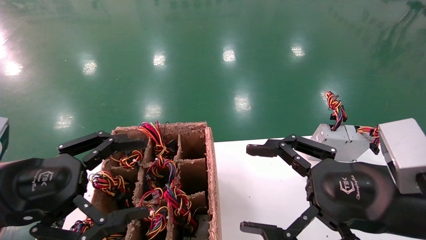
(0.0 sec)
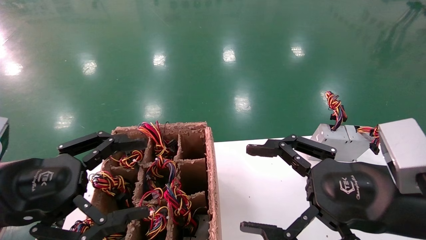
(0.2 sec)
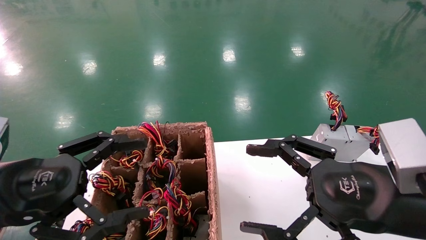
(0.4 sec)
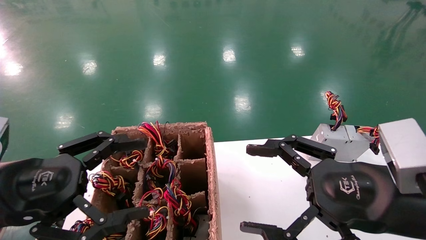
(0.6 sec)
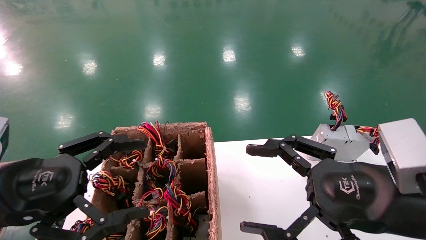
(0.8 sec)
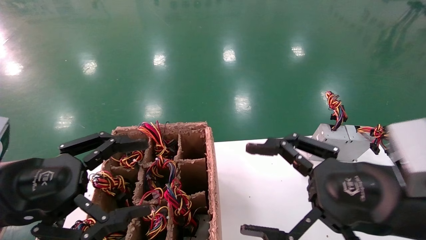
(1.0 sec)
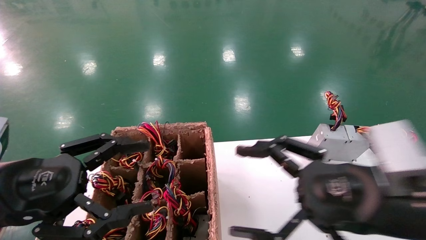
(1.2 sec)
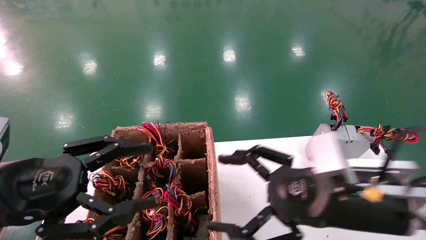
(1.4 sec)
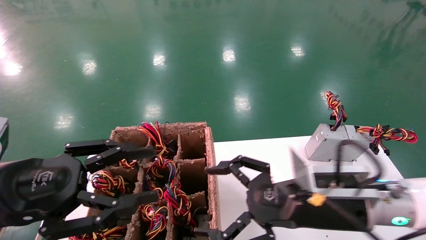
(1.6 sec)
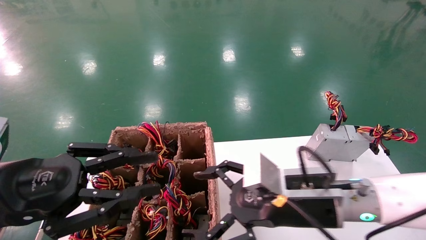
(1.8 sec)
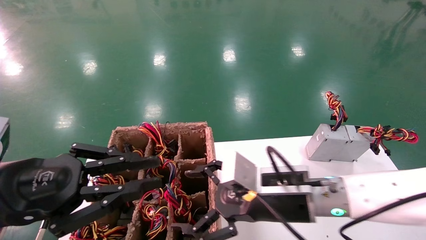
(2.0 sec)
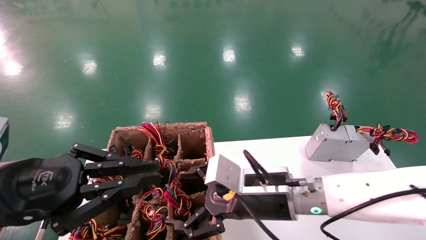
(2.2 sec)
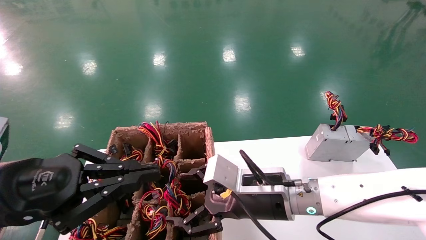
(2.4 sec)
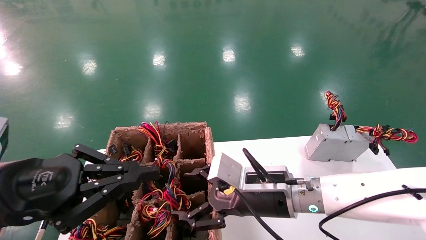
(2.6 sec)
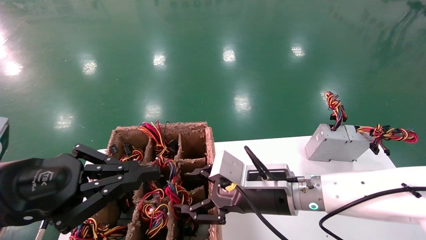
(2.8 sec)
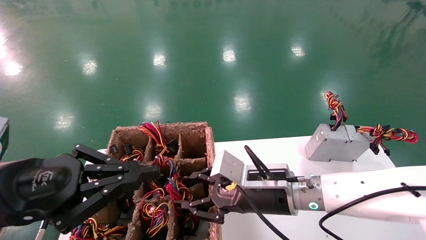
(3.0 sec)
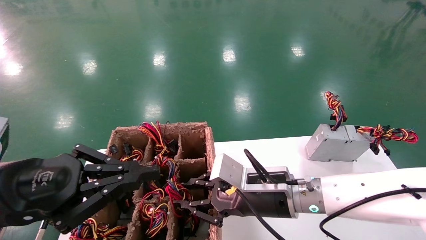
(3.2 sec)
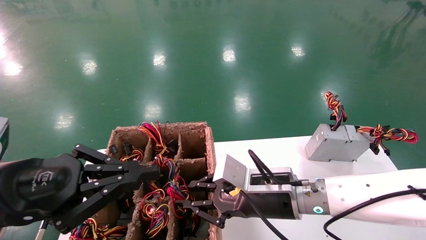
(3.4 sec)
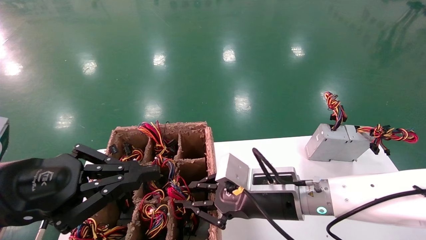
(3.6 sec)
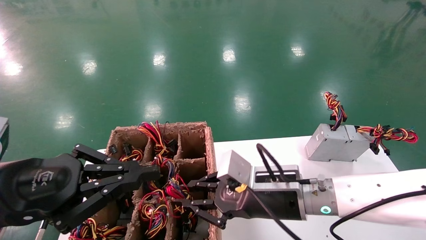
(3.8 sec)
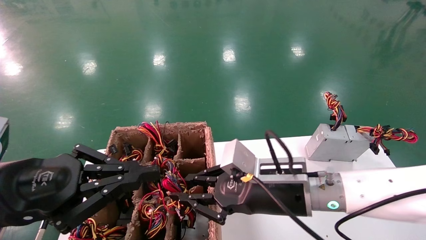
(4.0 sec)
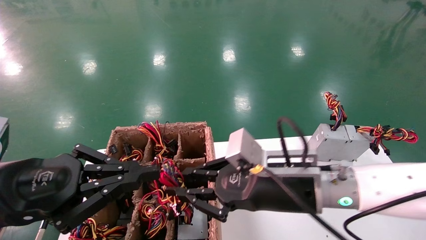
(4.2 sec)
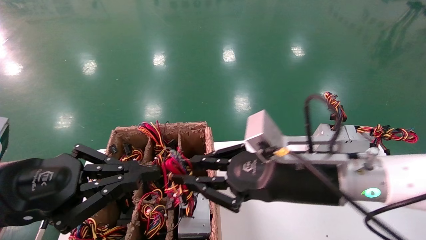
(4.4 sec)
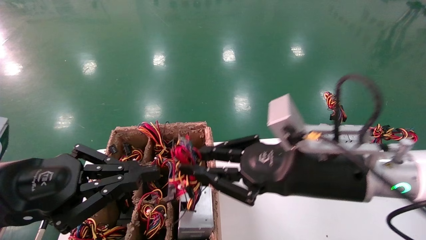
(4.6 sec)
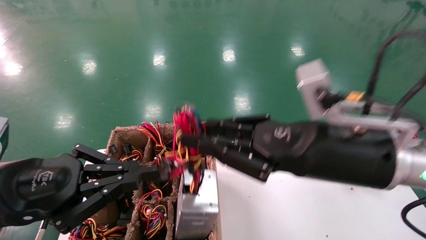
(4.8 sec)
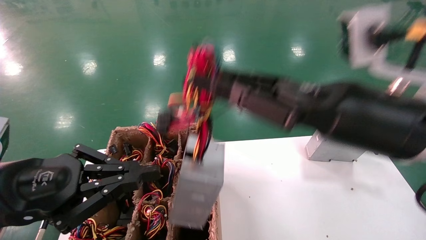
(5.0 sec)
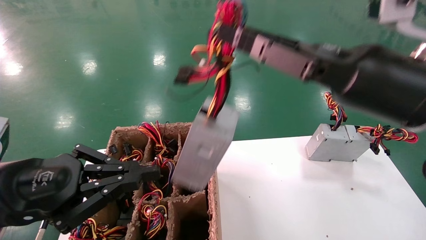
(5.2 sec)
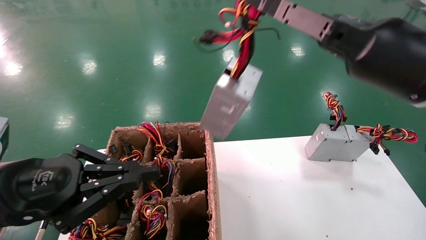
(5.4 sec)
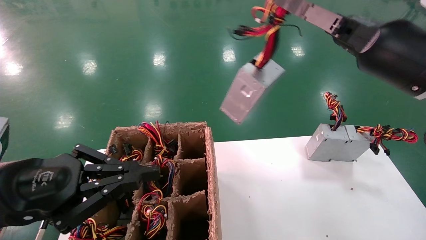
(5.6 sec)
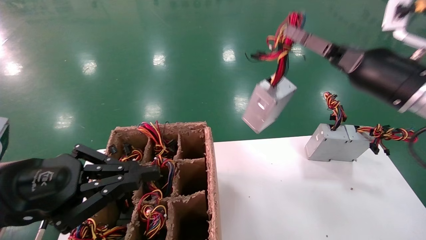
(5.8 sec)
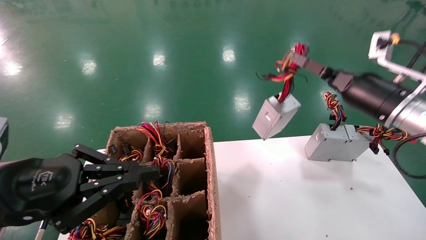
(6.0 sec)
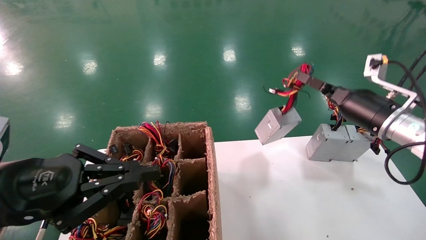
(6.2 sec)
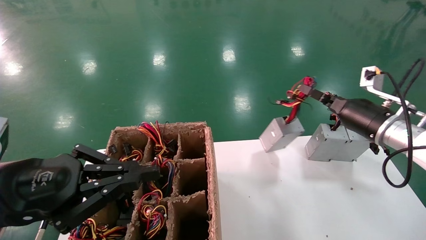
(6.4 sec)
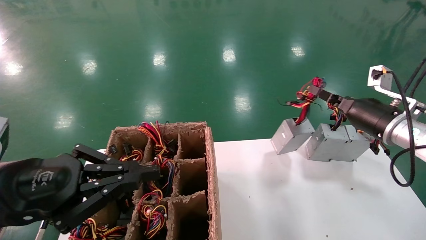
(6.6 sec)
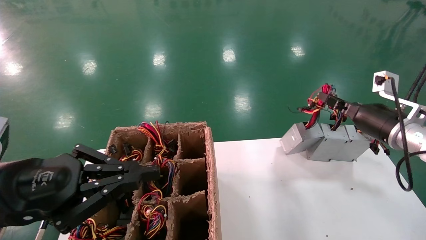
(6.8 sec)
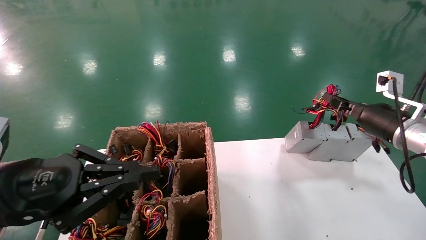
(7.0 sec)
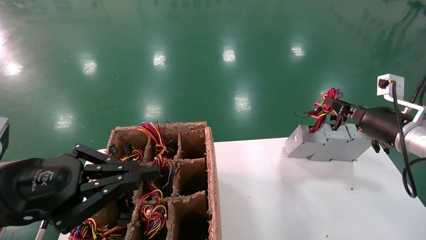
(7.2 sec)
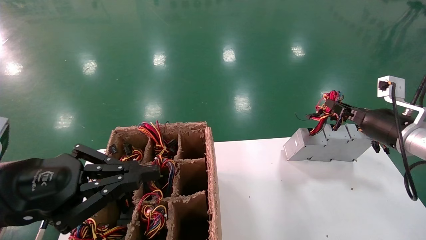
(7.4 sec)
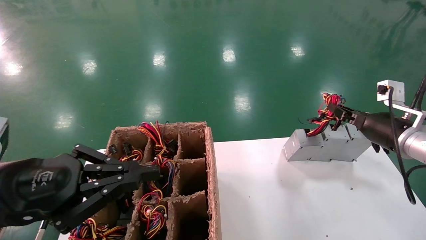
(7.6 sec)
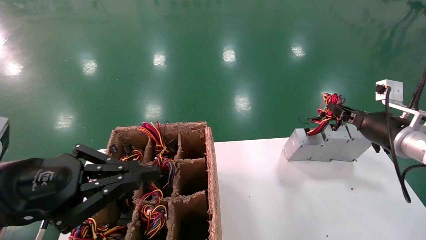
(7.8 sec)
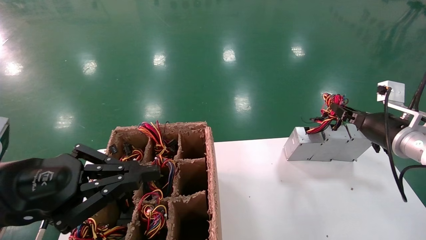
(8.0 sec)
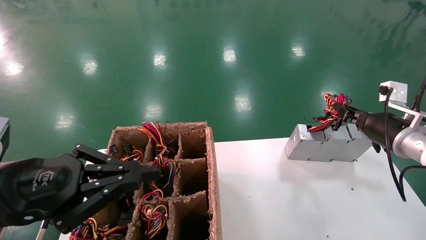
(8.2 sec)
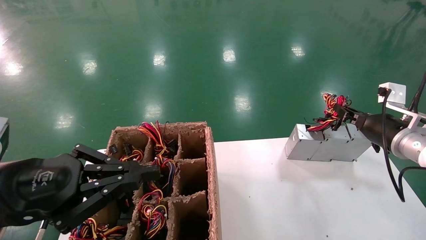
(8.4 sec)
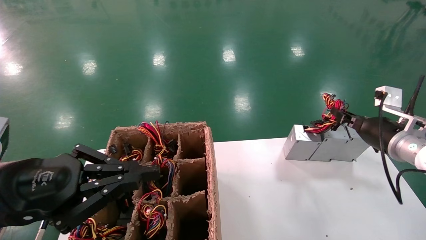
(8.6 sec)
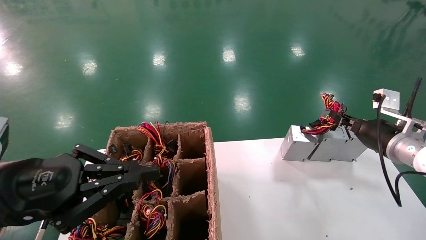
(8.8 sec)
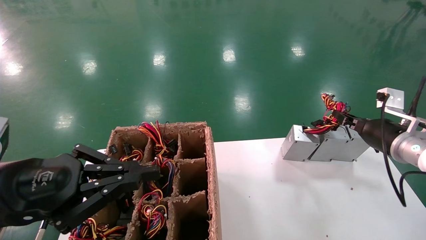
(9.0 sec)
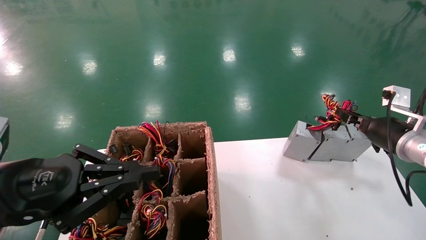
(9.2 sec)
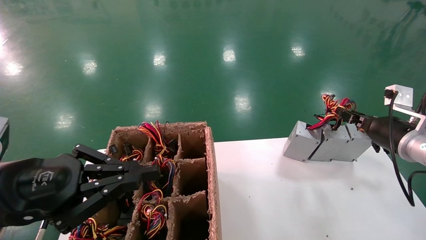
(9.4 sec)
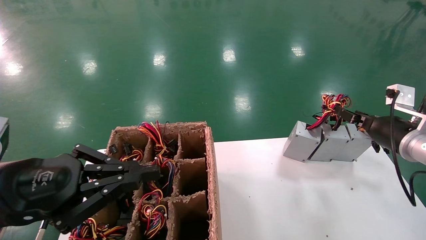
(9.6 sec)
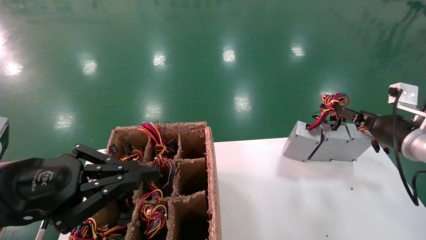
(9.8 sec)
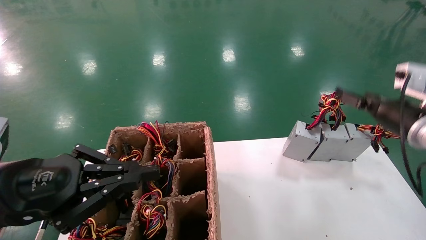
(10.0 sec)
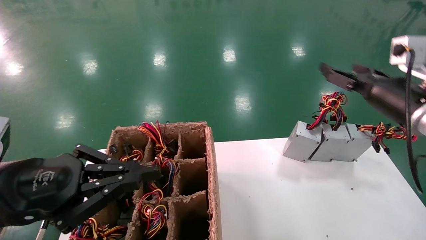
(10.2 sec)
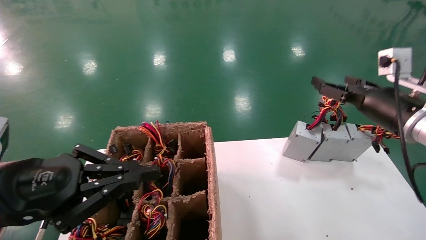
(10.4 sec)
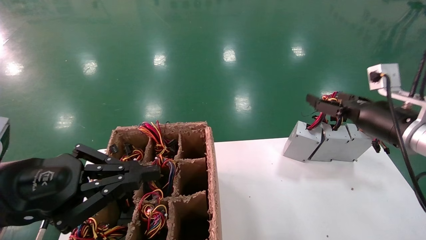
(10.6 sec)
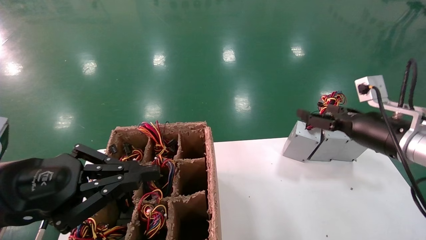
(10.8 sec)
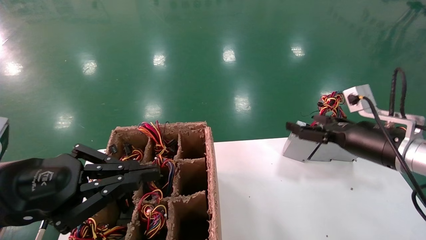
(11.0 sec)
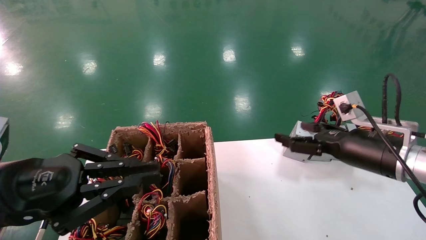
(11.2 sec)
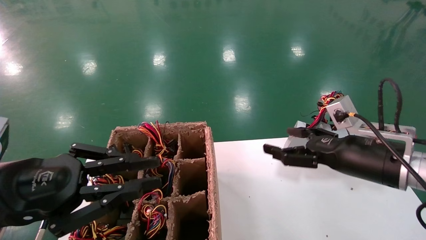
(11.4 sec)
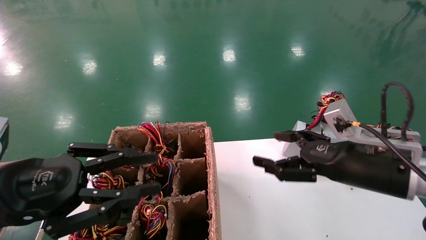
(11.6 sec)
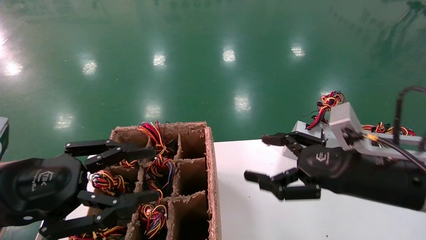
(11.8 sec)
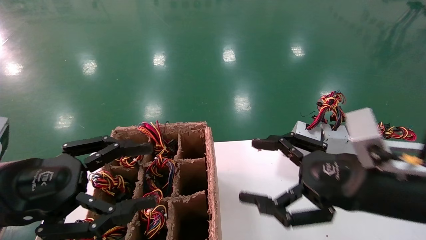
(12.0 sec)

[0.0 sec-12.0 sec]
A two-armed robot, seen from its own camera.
Step, 1.2 sec to 3.8 sec: Grab the main unit power supply from the containment box.
Step, 4.0 sec to 9.6 sec: Place the main unit power supply in the designated area.
0.0 sec to 1.6 sec: The right gripper is displaced to the left and forward by some 10 cm.
1.6 sec to 3.0 sec: The left gripper closes; the right gripper shifts roughly 10 cm forward and to the left, and closes up.
3.0 sec to 4.4 sec: The right gripper heads upward and backward, covering some 10 cm, and closes.
4.4 sec to 6.0 sec: The right gripper heads to the right, forward and upward, covering about 20 cm.
6.0 sec to 7.6 sec: The right gripper heads downward and to the right, covering some 10 cm.
7.6 sec to 9.0 sec: The grippers move only a little.
9.0 sec to 10.4 sec: The right gripper is displaced upward by some 5 cm, and opens its fingers.
10.4 sec to 12.0 sec: The right gripper goes about 20 cm backward and to the left. Meanwhile the left gripper opens up.

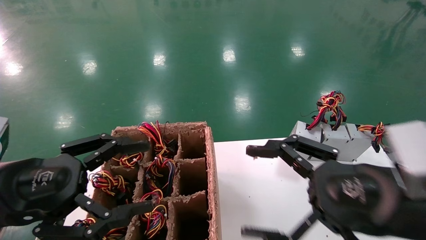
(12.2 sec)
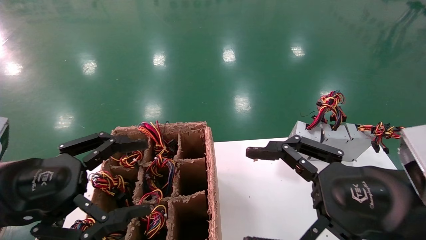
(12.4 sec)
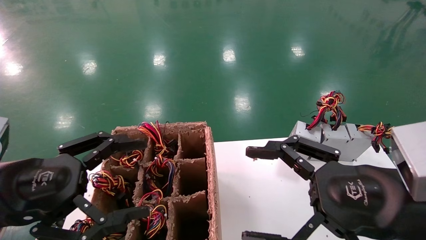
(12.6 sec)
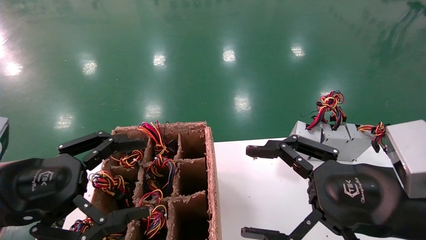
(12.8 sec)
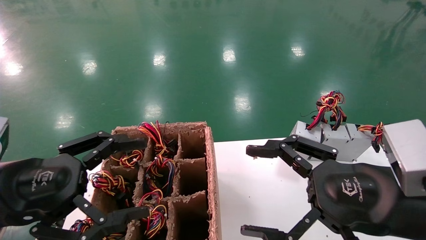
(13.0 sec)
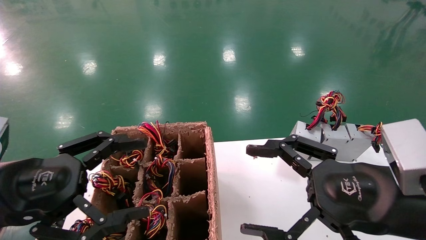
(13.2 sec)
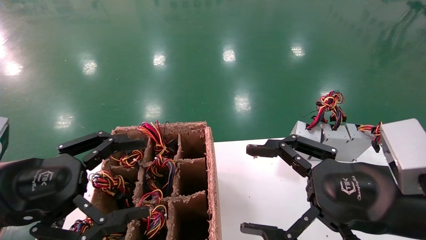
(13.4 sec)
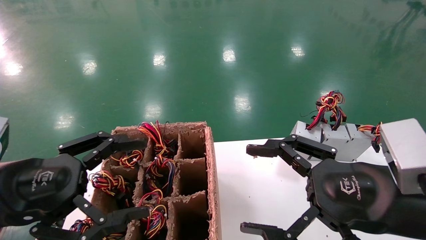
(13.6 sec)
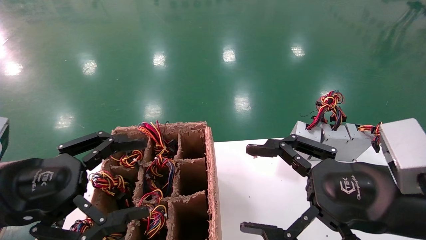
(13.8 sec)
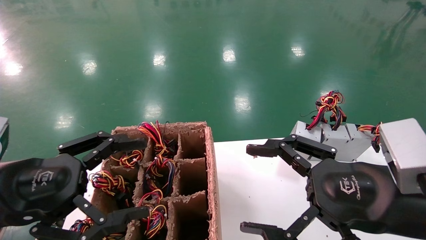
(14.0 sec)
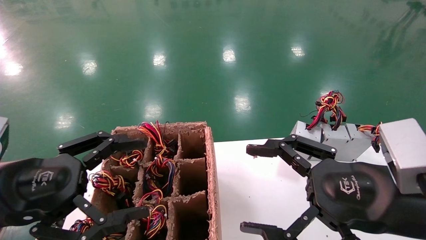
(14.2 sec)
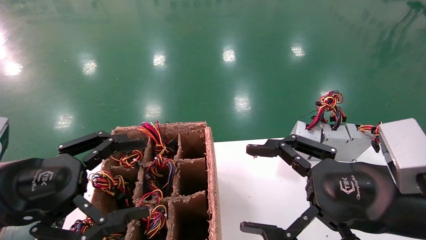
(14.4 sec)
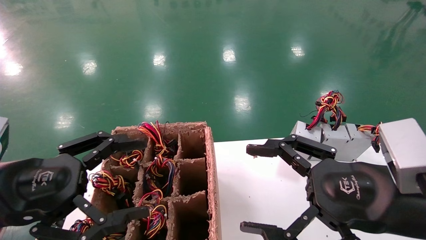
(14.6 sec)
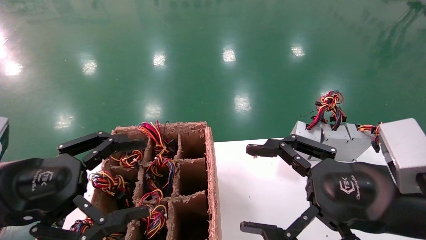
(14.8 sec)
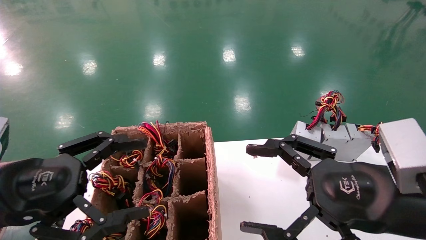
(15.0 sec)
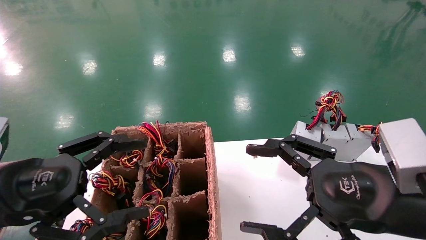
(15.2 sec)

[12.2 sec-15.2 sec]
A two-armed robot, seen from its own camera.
12.2 sec to 15.2 sec: Neither gripper changes place.
